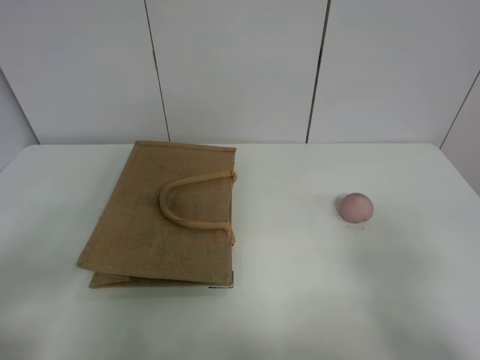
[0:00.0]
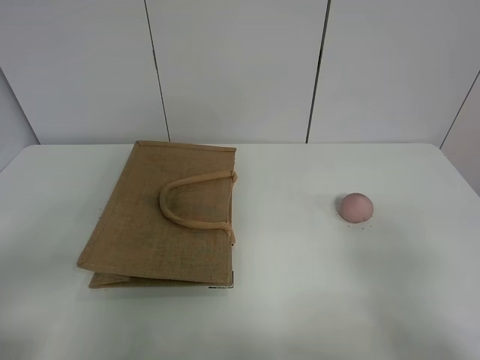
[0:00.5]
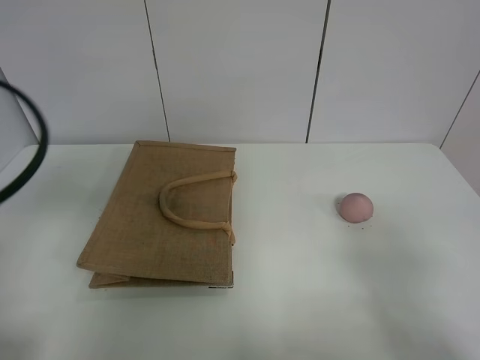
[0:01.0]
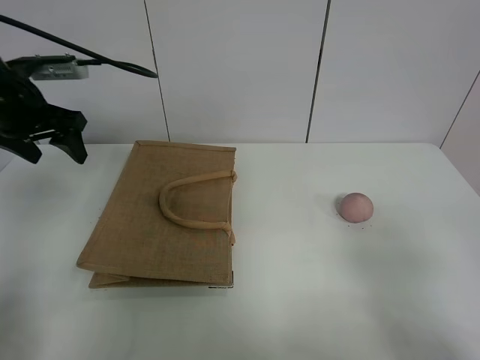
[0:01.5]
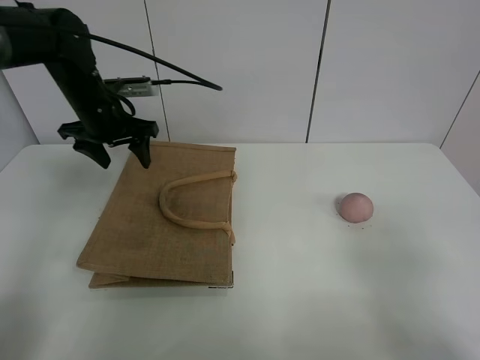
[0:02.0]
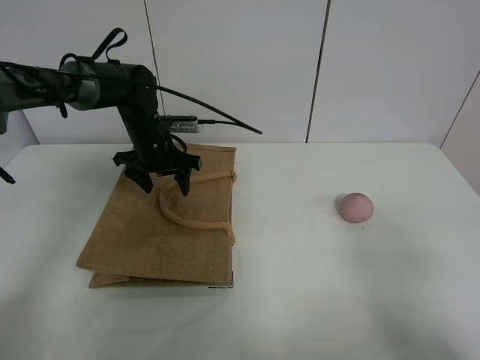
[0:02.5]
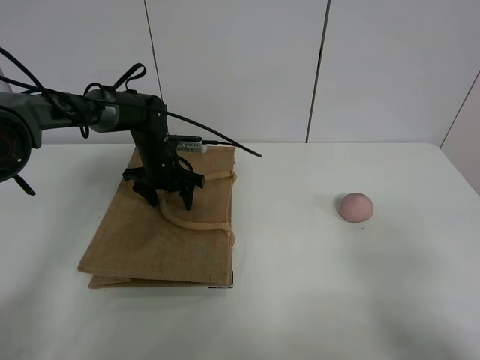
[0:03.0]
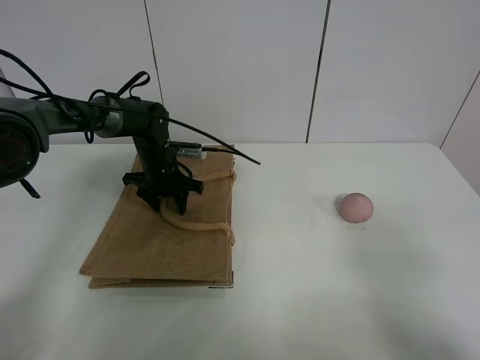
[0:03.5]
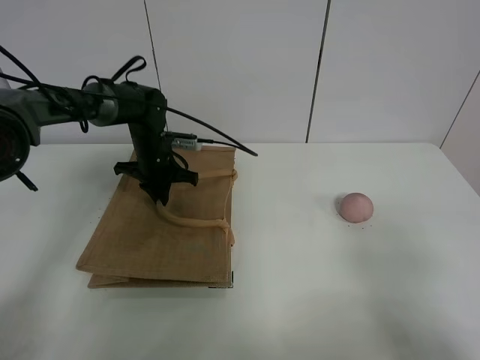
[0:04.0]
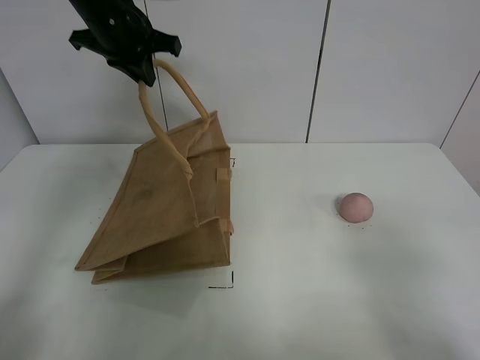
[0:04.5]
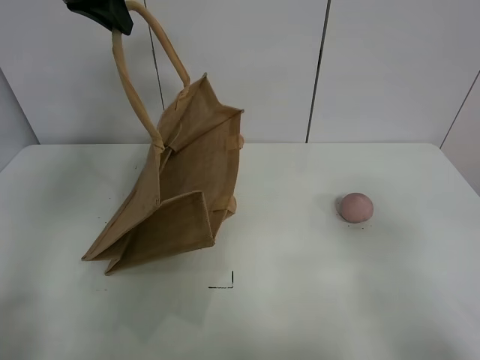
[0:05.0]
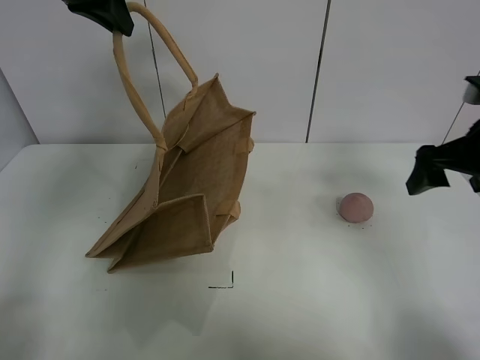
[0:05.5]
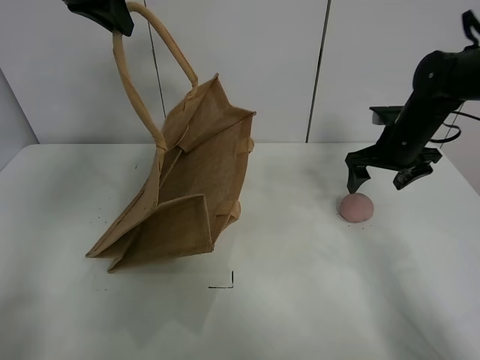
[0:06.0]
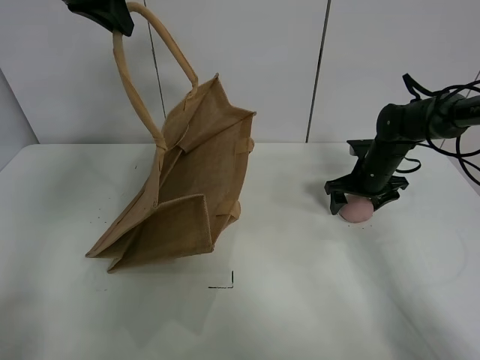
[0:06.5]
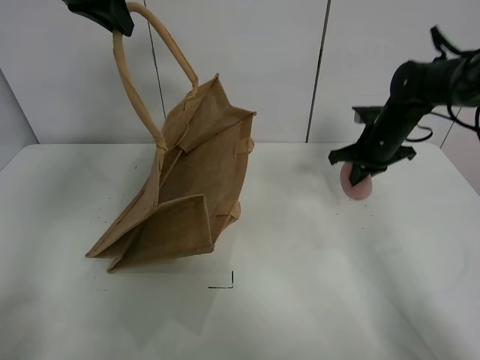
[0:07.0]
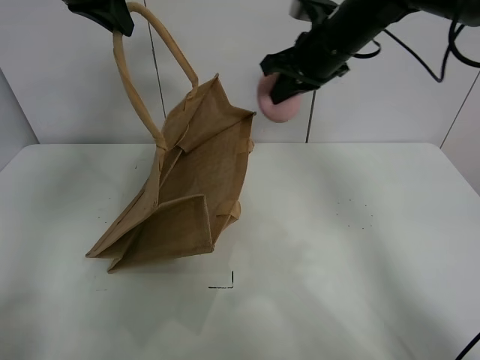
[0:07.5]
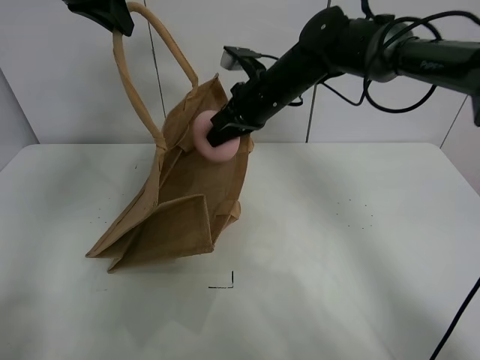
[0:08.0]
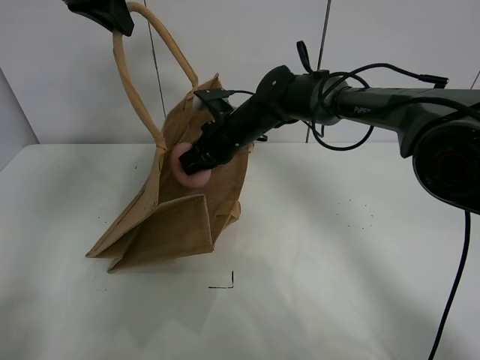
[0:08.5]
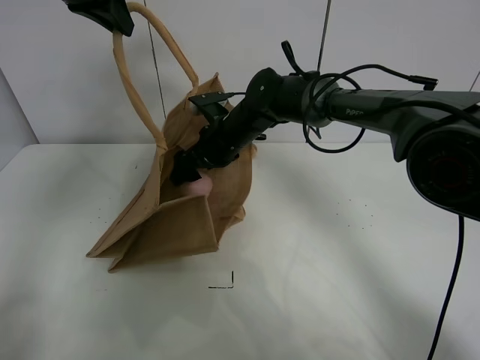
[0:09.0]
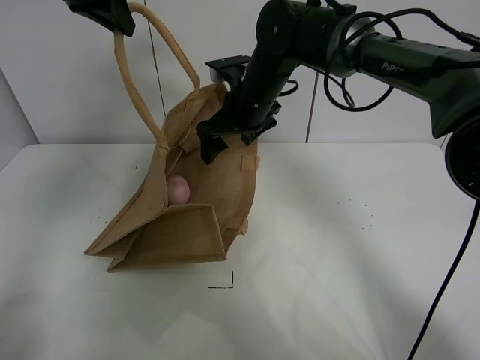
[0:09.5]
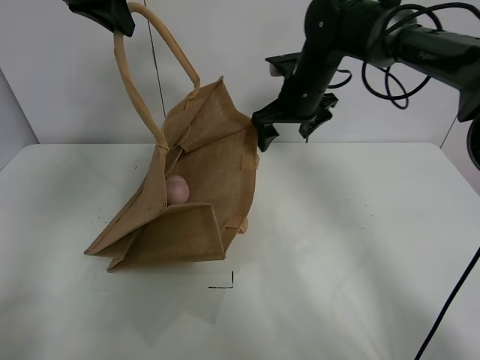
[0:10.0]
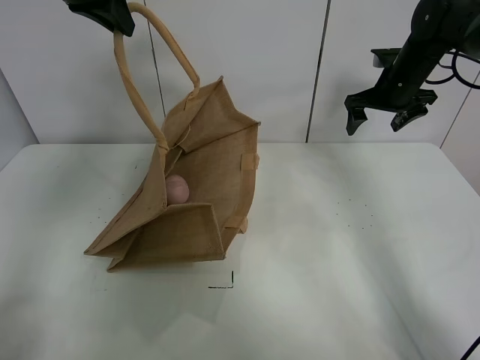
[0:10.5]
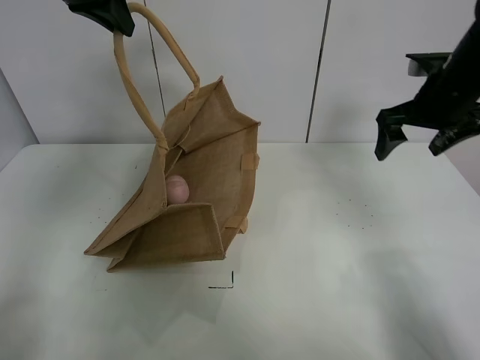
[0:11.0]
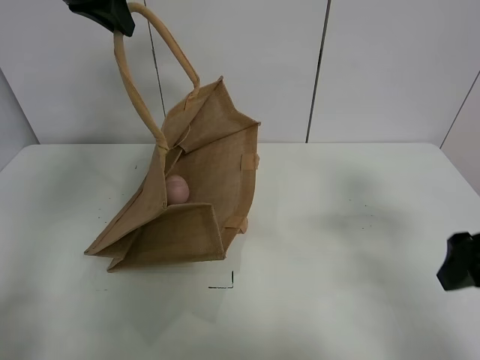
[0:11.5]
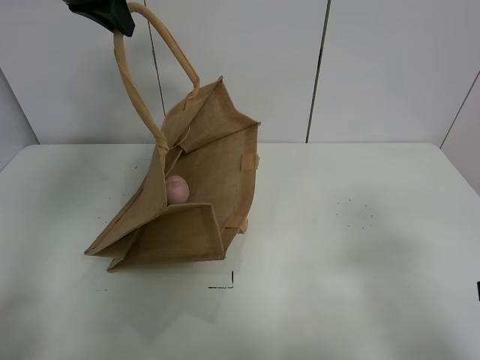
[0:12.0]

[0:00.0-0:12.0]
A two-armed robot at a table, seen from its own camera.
Task of the whole recording: open the brown linen bag and put the peach in the bag.
Step, 0.0 to 4.5 s: Lift the handbag with left gripper.
Step, 5.0 to 6.5 s: Grasp the peach with right gripper.
Step, 7.0 to 10.0 s: Place the peach in the handbag with right gripper.
0.0 to 2.0 s: The left gripper moves forward, roughly 40 cm.
2.0 to 4.0 s: The left gripper travels downward and to the right by some 10 cm, and closes up.
4.0 to 6.0 s: The left gripper travels upward by roughly 30 cm. The right gripper goes roughly 40 cm forward.
6.0 to 8.0 s: The right gripper goes up and down, some 20 cm each way, reversing 2 times, and closes its fingers.
8.0 to 10.0 s: The right gripper shifts about 10 cm to the right, and opens.
10.0 to 12.0 s: The right gripper goes roughly 40 cm backward and to the right.

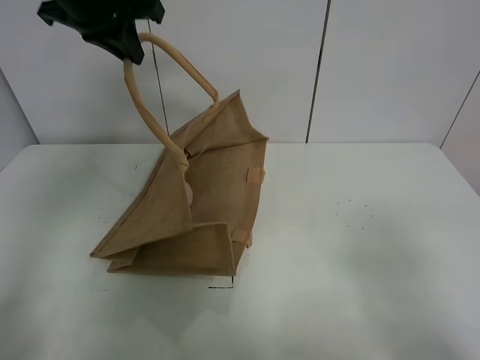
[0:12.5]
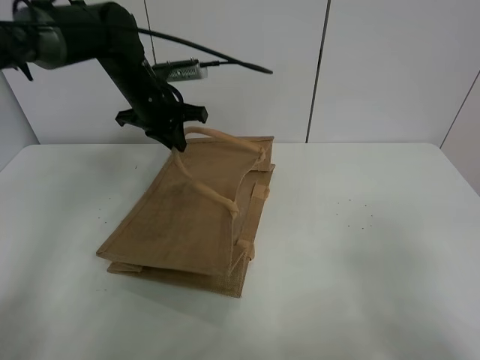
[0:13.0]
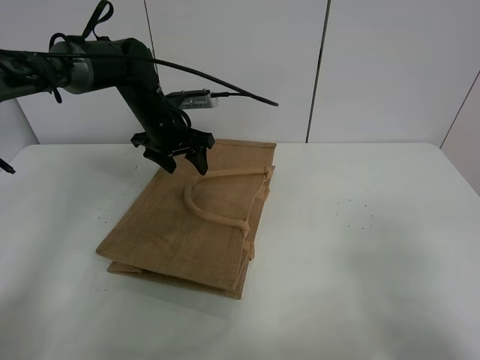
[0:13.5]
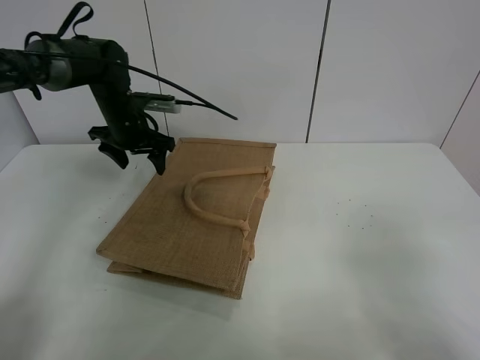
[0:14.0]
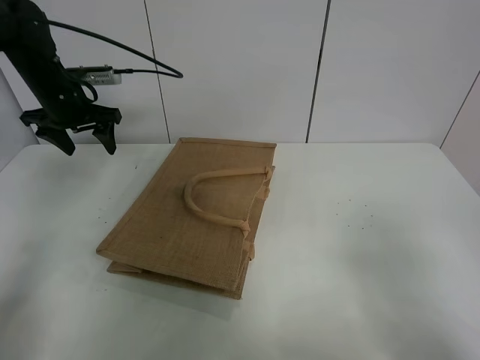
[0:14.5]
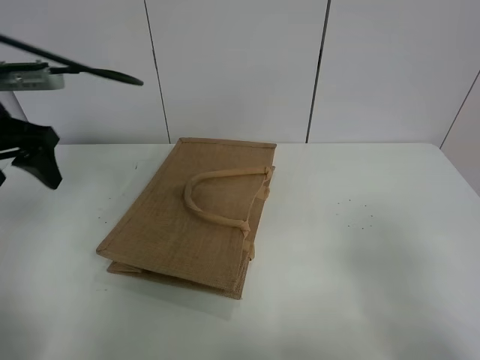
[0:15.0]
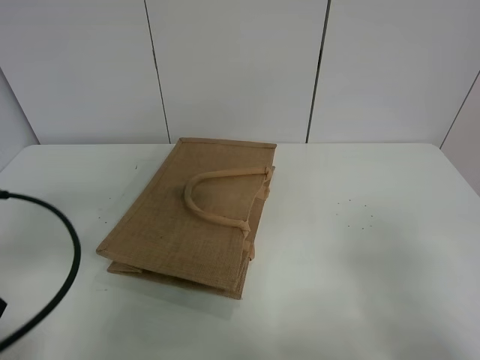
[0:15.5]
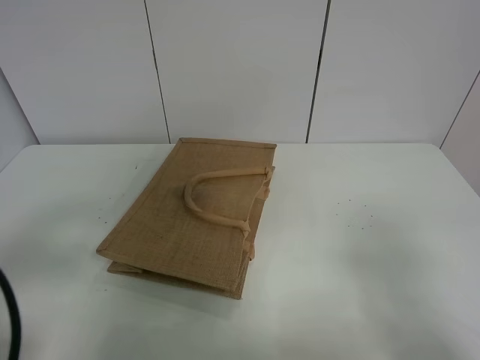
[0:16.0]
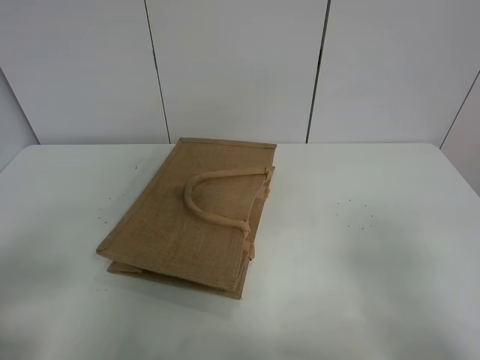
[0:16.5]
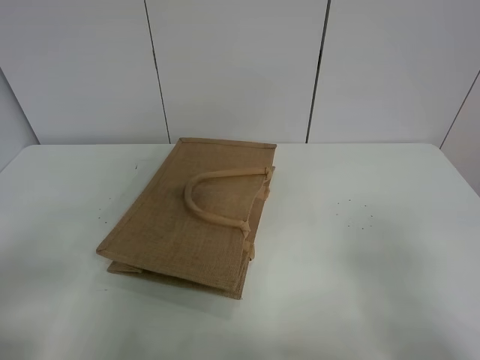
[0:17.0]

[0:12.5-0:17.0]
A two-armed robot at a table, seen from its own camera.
Task of the whole recording: open the brown linen bag and put the peach in the bag.
12.5 to 14.5 s: The left gripper shifts about 20 cm downward and to the left, and opens up.
14.5 to 17.0 s: The left gripper goes roughly 40 cm backward.

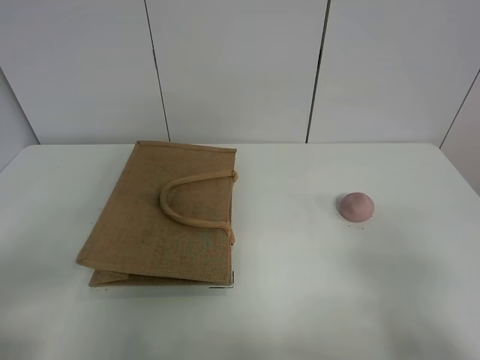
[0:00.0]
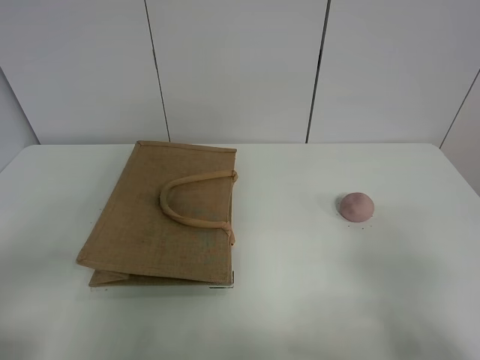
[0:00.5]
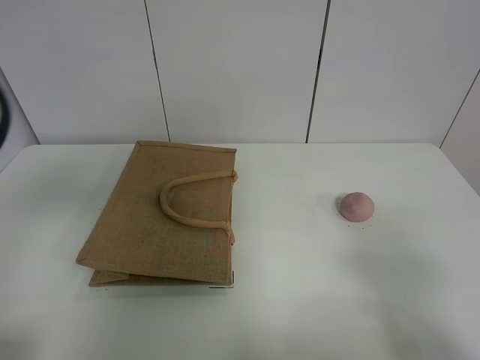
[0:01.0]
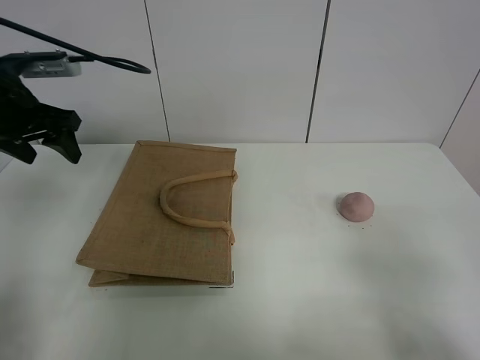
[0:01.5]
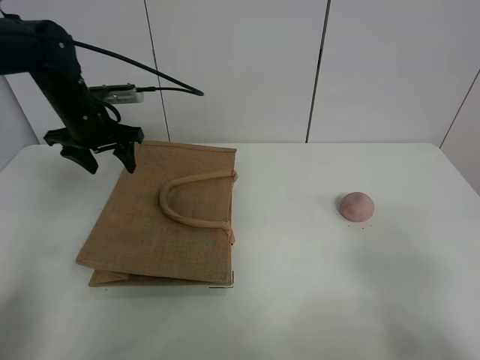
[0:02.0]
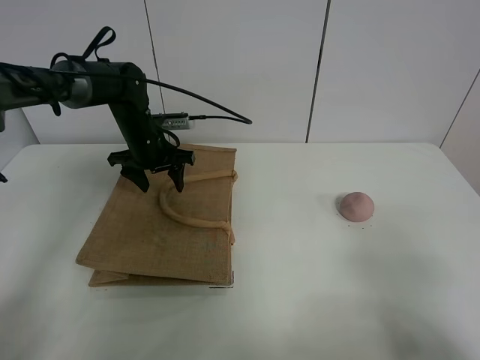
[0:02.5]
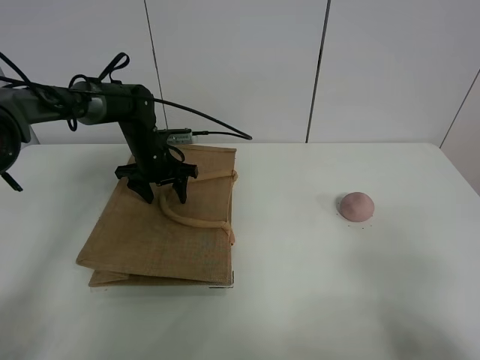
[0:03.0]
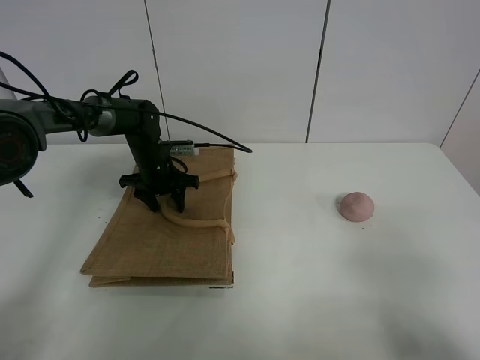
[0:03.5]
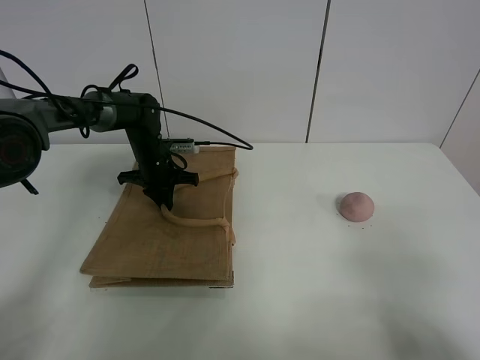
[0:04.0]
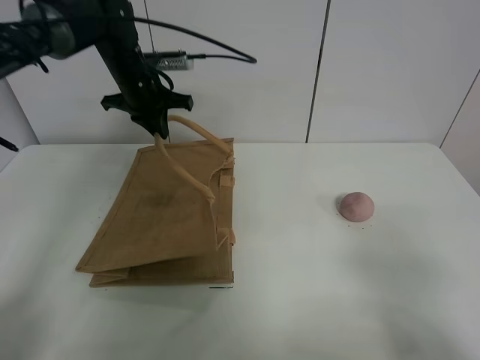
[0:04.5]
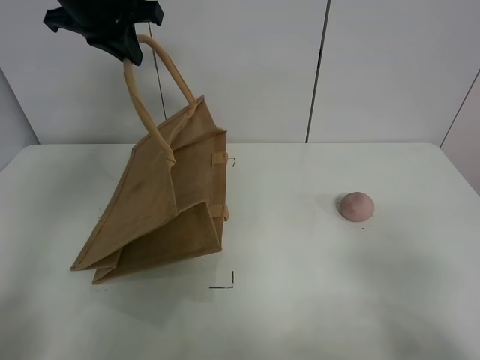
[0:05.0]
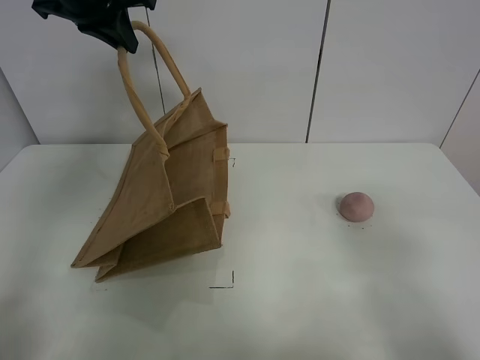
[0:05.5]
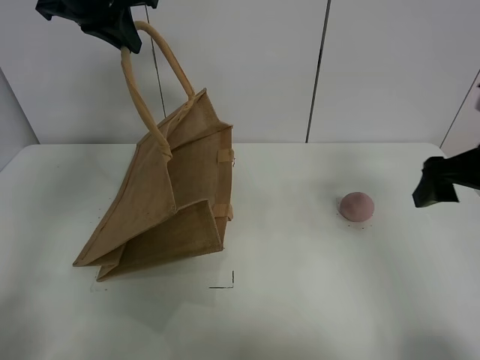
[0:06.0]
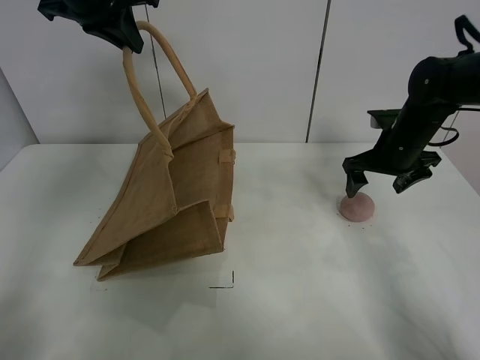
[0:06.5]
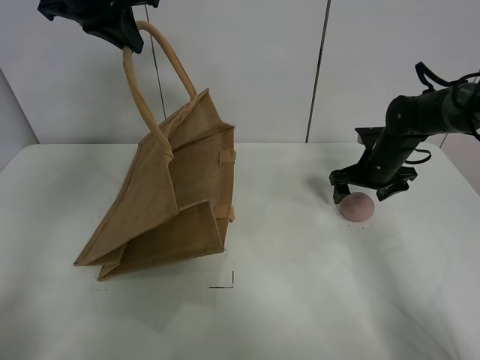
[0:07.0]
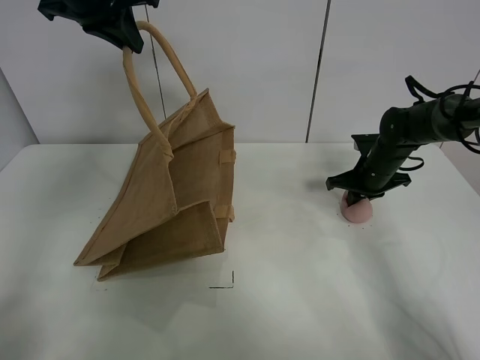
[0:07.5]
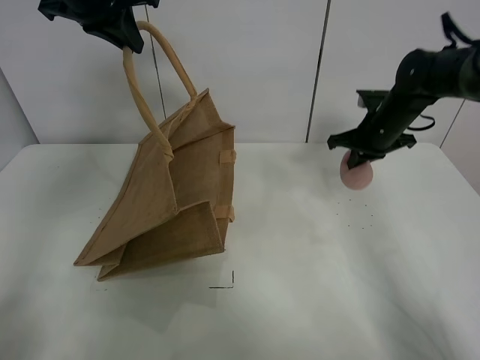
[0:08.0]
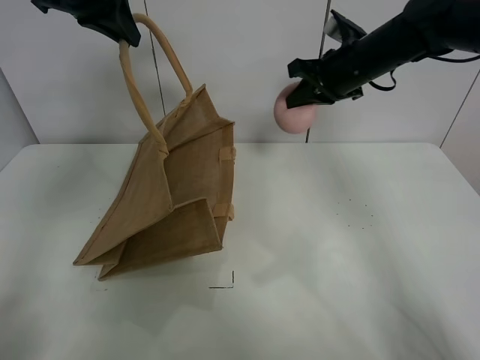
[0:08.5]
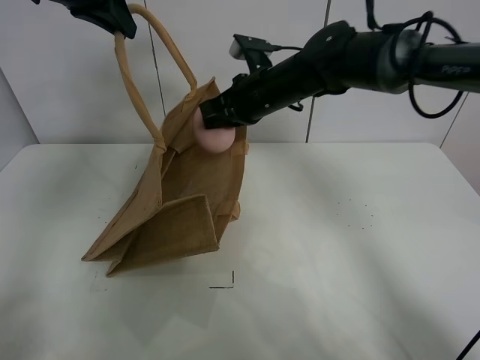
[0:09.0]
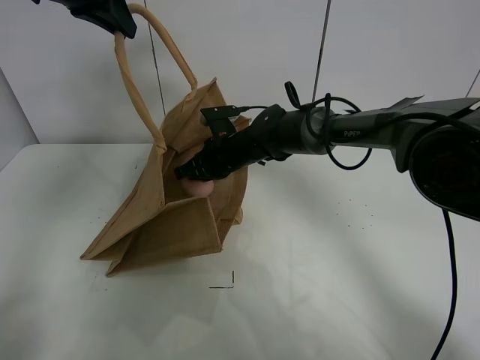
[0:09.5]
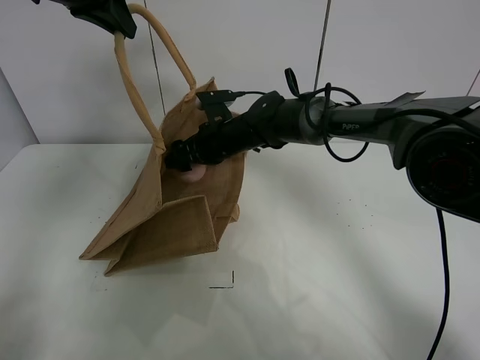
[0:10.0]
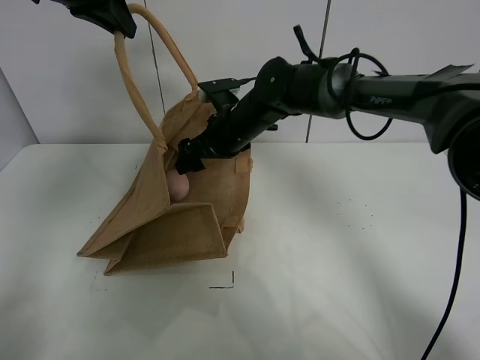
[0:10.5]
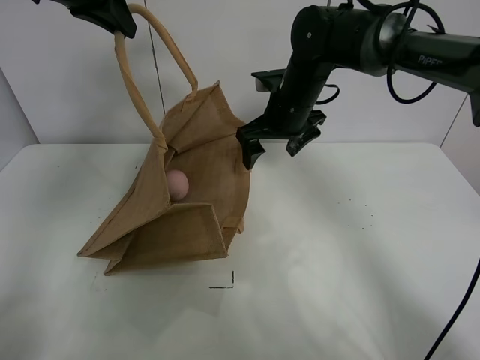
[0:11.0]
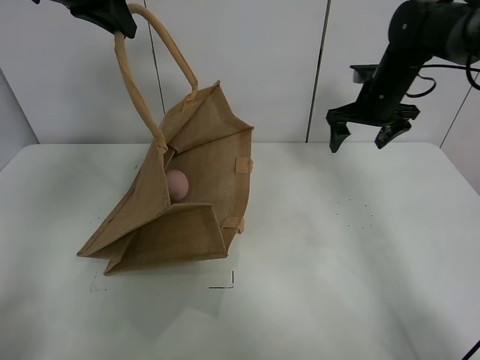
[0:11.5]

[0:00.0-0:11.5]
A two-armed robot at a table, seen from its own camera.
Task of the whole recording: open the brown linen bag and put the peach in the bag.
Step, 0.0 to 5.0 s: Lift the handbag with left gripper.
Step, 5.5 to 7.5 s: Grasp the peach with right gripper.
Step, 8.0 to 11.0 s: Place the peach in the handbag with right gripper.
2.0 to 4.0 s: The left gripper heads downward and to the right, covering roughly 20 cm, and closes up.
4.0 to 6.0 s: The right gripper moves forward, approximately 20 cm. Meanwhile the left gripper shifts approximately 30 cm upward.
6.0 to 7.5 s: The right gripper travels forward and downward by roughly 30 cm.
7.5 to 9.5 s: The right gripper travels to the left by approximately 25 cm, and closes.
9.5 to 11.5 s: The right gripper travels to the right and upward by roughly 20 cm, and opens its fingers.
